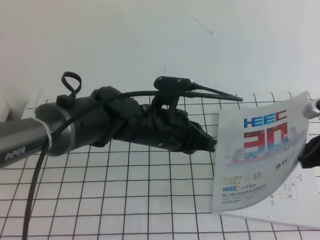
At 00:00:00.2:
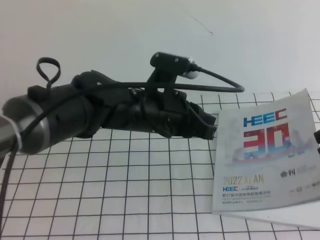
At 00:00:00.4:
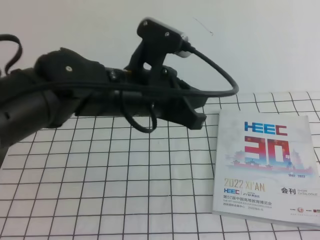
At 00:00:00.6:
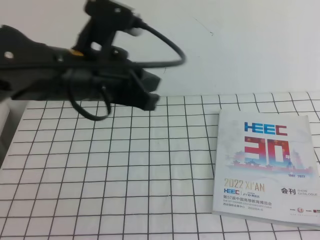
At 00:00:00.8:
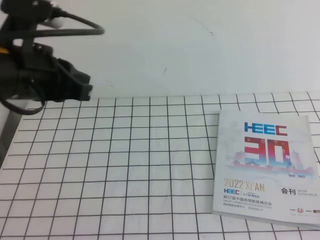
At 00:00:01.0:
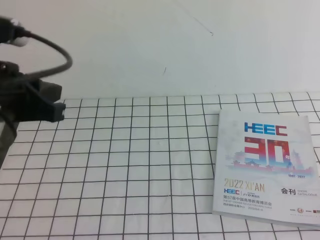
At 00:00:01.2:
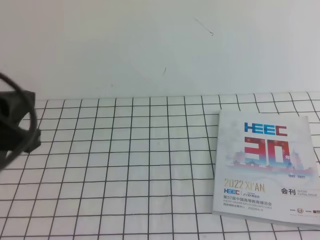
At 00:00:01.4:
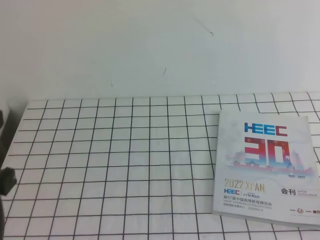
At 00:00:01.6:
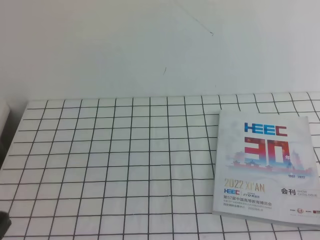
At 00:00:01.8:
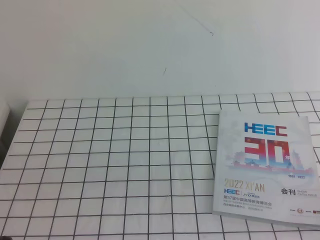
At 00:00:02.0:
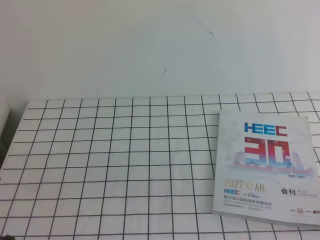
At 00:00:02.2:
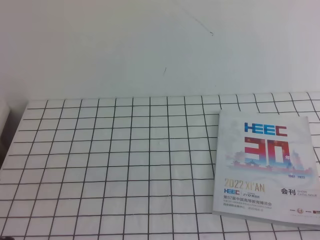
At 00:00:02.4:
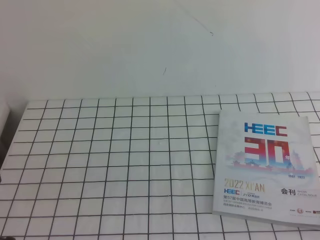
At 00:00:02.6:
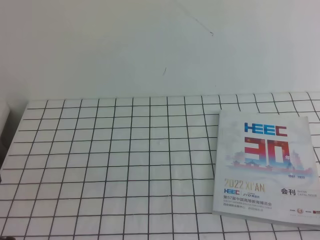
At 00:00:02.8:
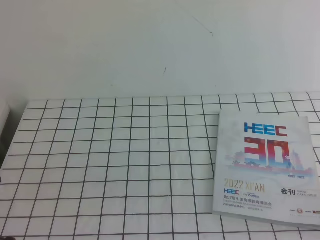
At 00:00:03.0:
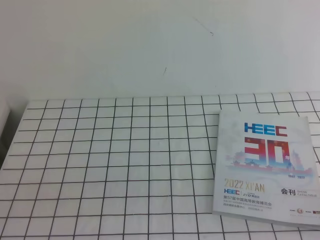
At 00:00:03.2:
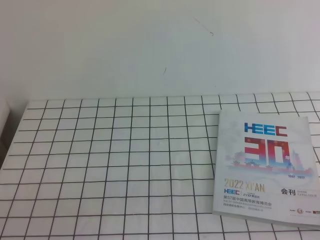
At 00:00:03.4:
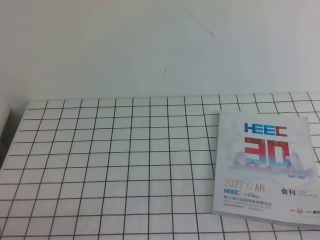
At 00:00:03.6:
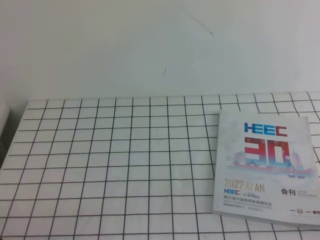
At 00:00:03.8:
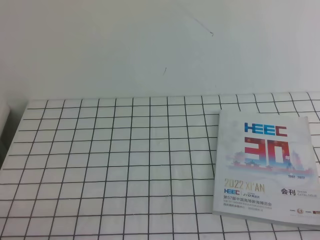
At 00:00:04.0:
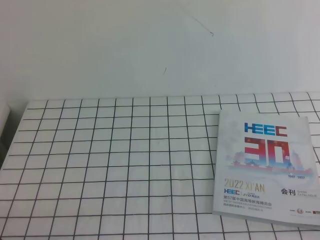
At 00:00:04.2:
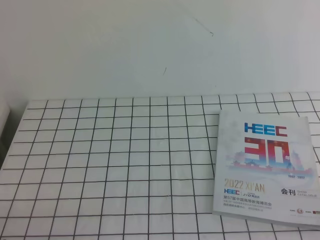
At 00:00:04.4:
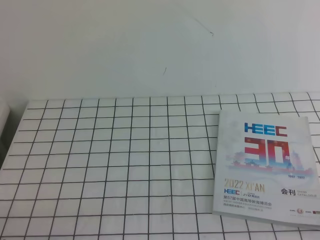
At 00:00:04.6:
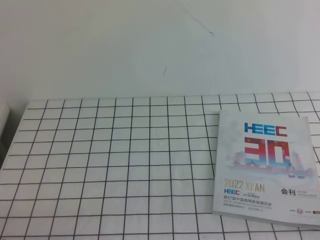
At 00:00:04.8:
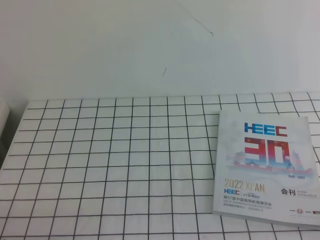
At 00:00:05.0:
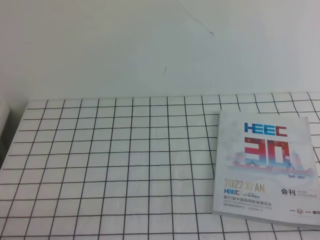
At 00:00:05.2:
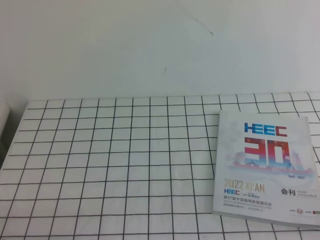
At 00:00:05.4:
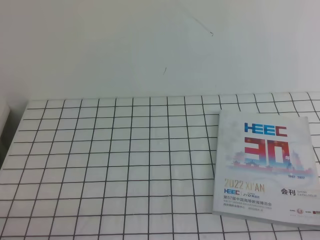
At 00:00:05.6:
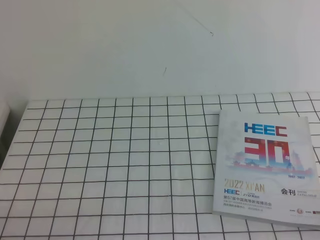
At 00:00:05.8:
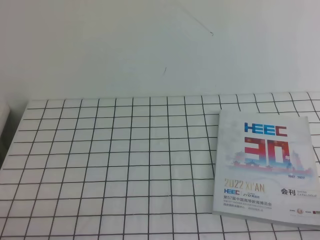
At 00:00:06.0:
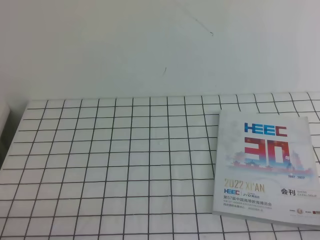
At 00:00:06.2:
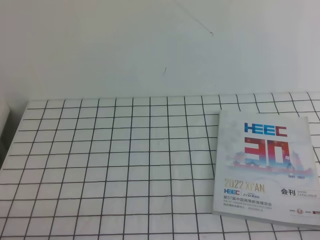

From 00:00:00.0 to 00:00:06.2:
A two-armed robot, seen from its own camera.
Task of the whole recording: on the white tablecloth, hold the book with one hand and close it with the other.
Step, from 00:00:00.0 to 00:00:06.2: Close the open book.
From 00:00:00.0 to 00:00:01.6: The right gripper shifts approximately 25 cm backward. The left gripper travels to the left and backward by approximately 30 cm.
